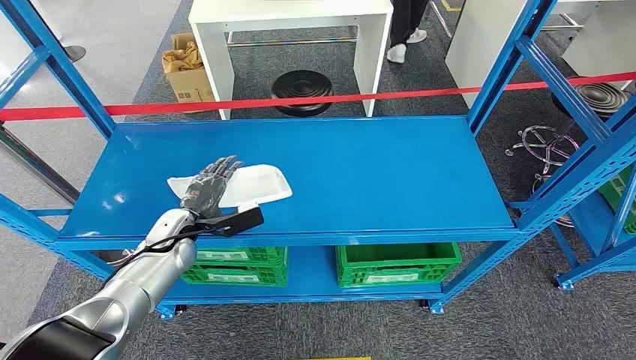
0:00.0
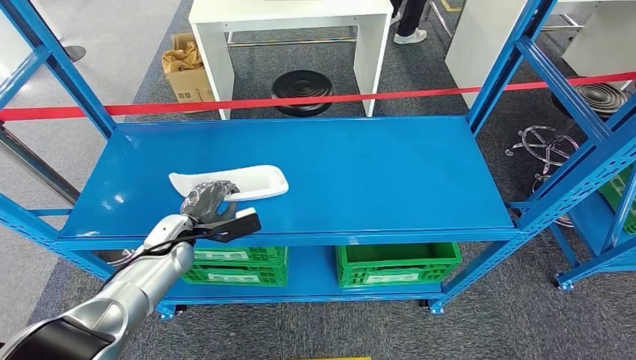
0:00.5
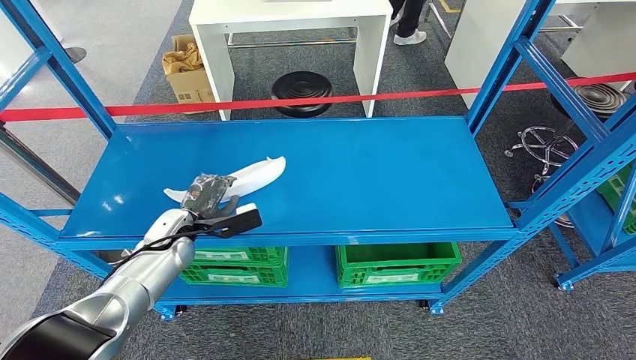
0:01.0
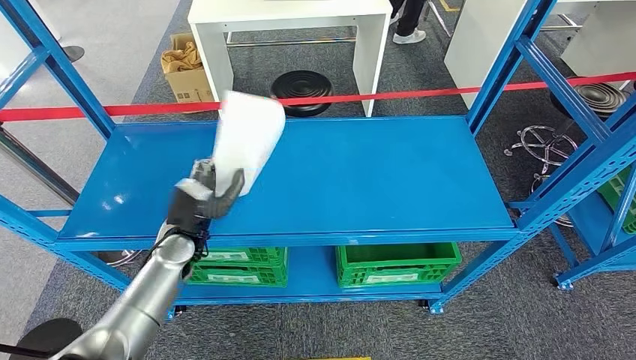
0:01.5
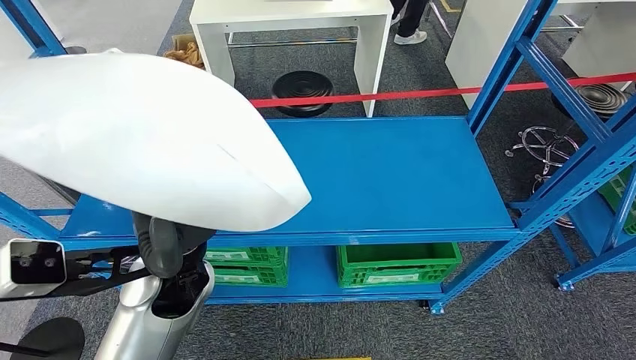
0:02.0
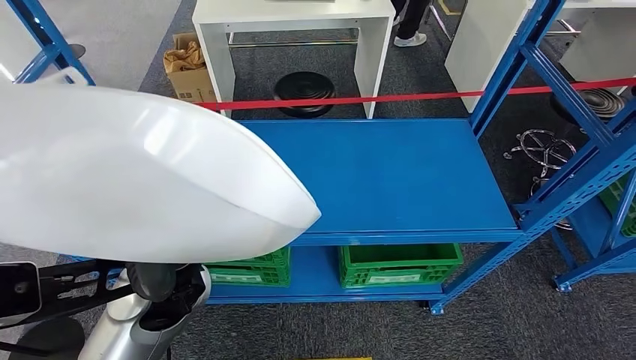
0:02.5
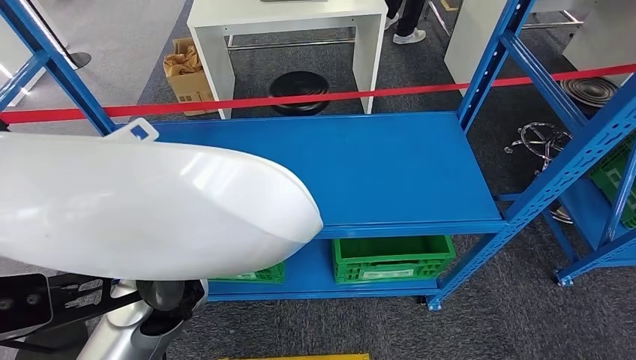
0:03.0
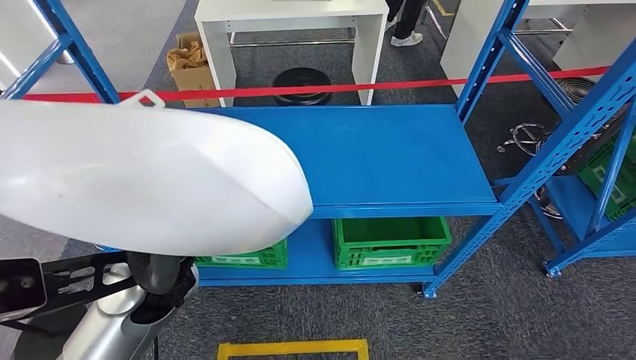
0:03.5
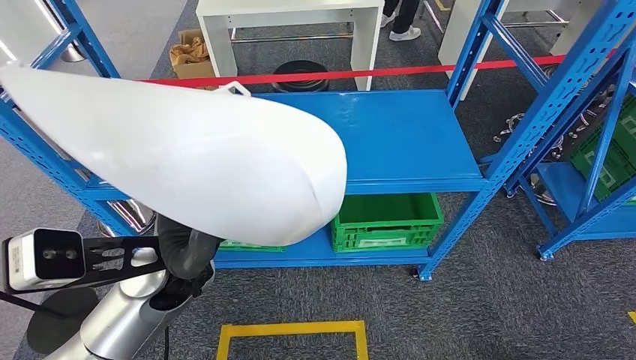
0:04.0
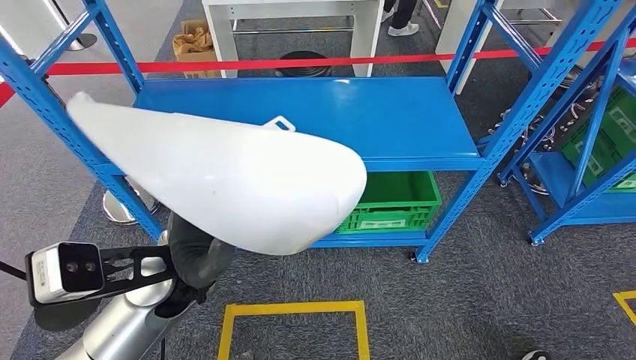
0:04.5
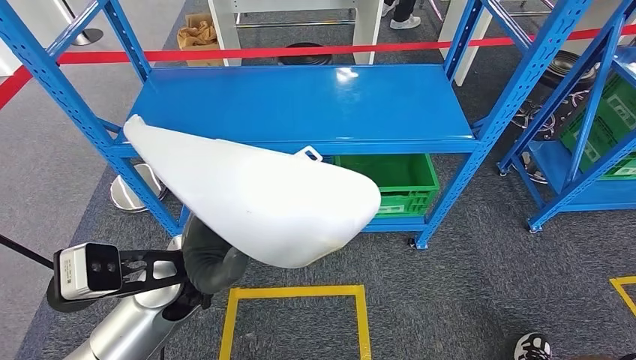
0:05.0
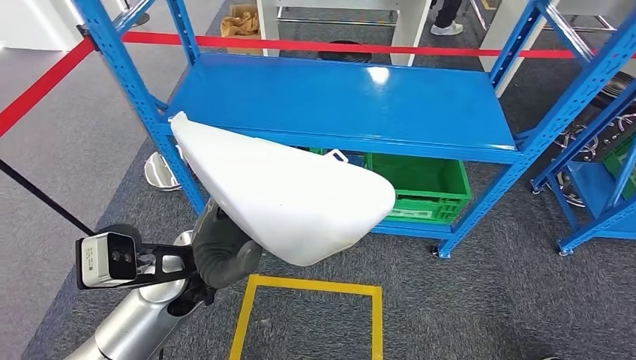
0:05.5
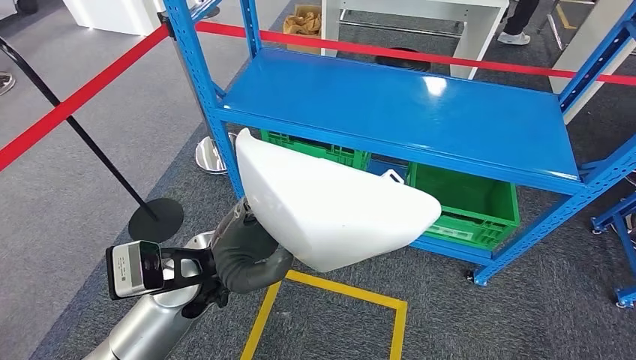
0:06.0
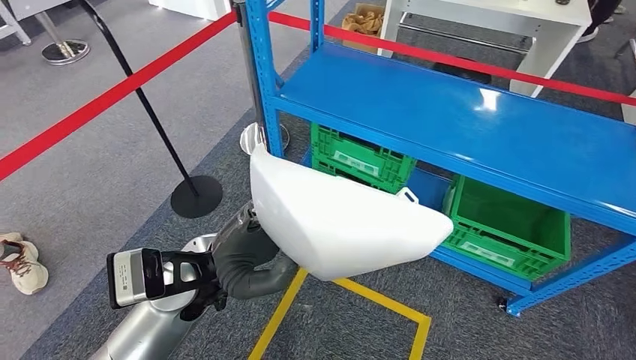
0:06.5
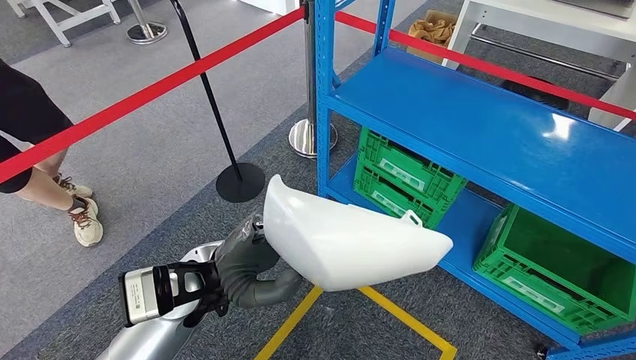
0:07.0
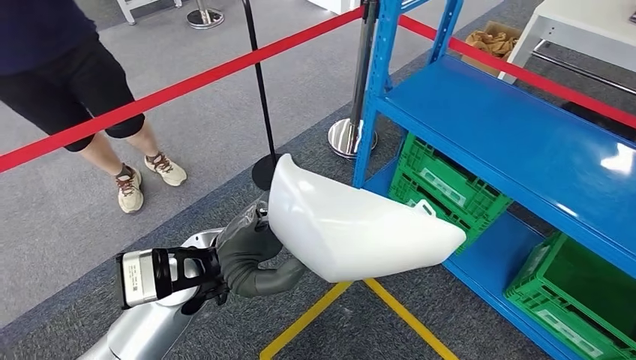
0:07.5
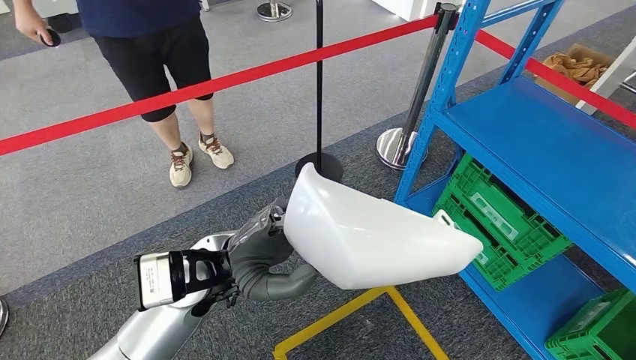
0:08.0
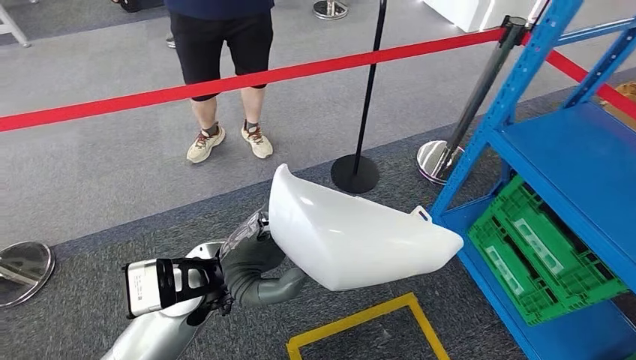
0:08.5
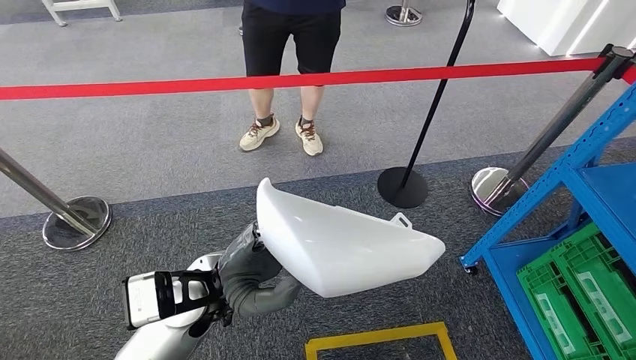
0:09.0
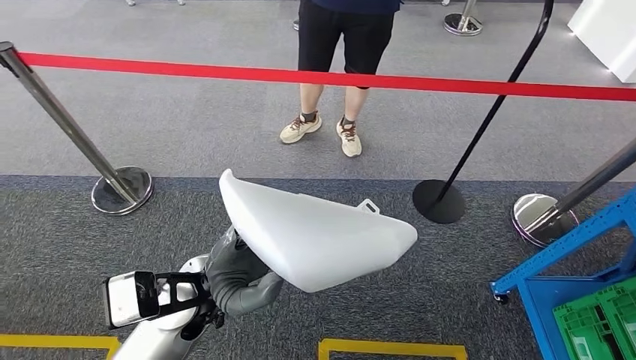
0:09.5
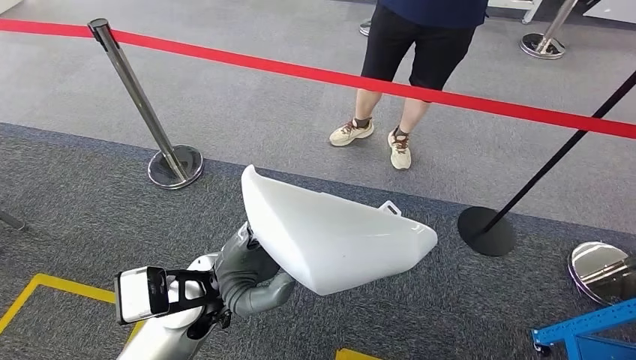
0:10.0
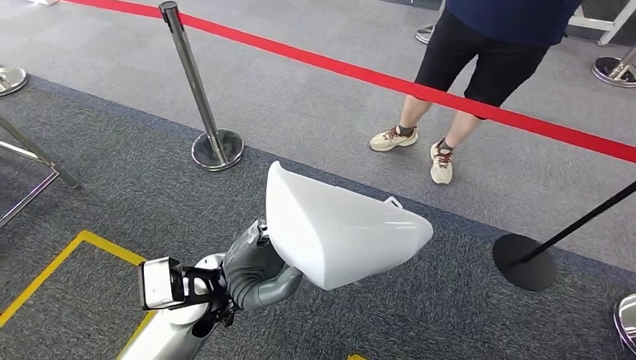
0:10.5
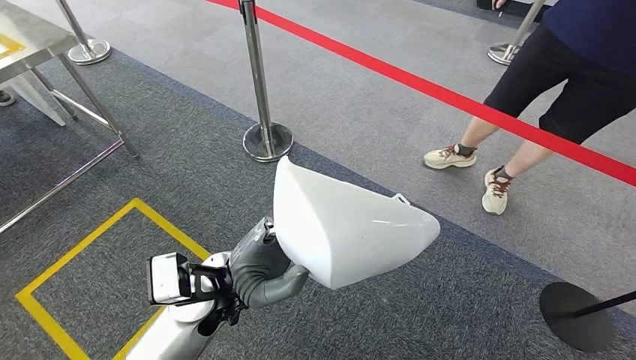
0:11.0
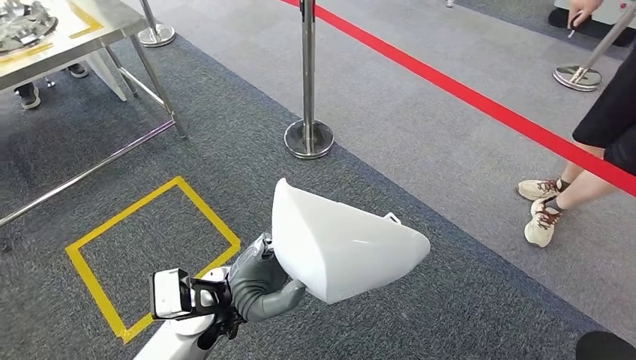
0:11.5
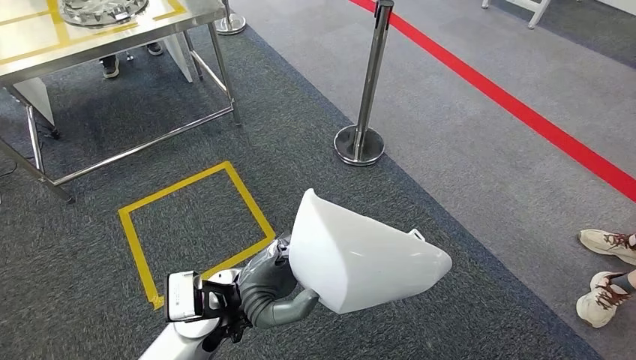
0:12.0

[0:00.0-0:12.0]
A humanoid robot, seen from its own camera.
Step, 0:00.0 to 0:02.0: Pick up the small component from the shelf.

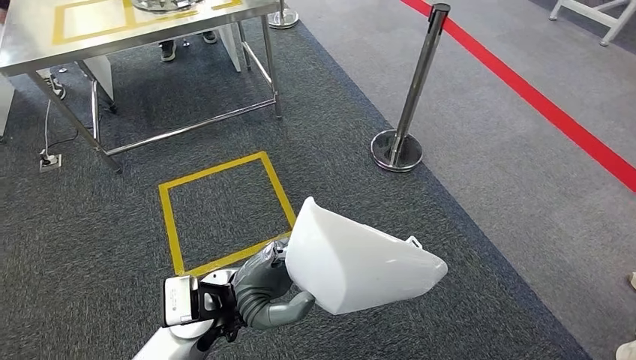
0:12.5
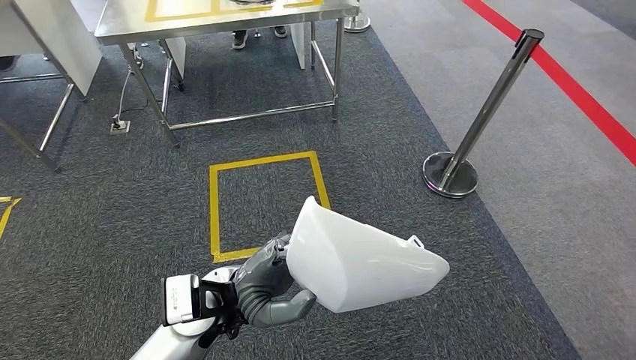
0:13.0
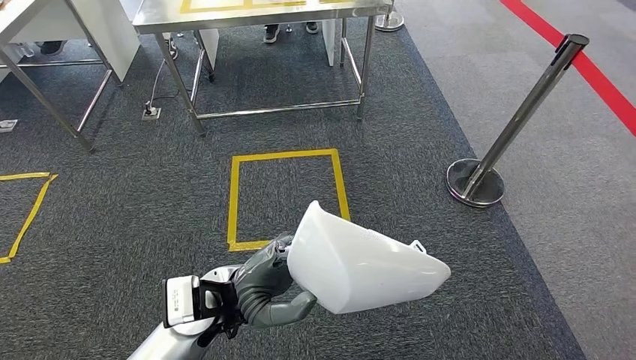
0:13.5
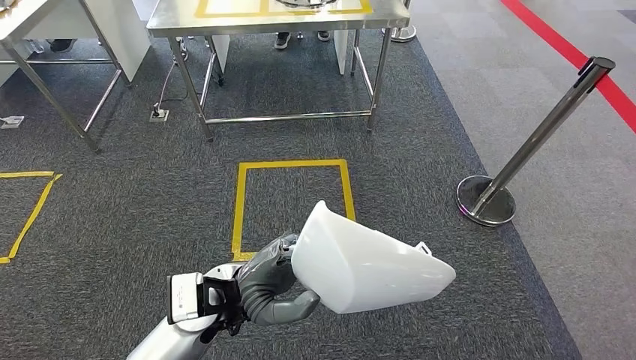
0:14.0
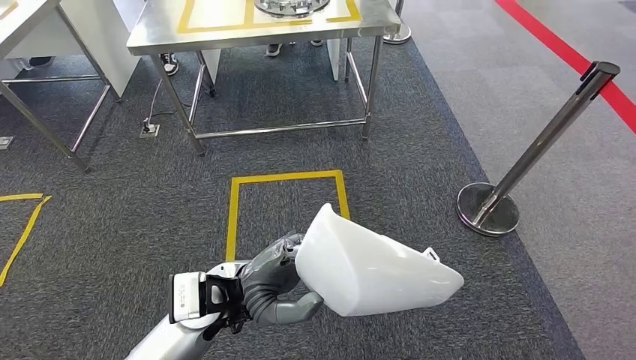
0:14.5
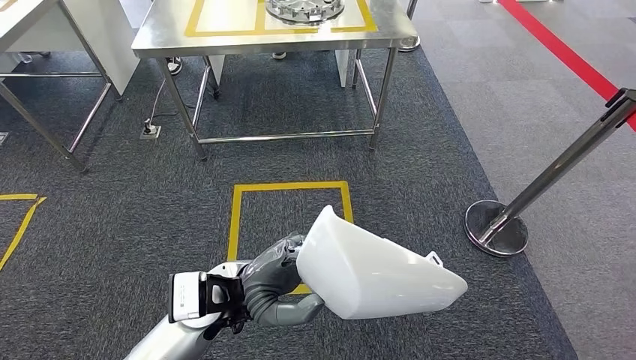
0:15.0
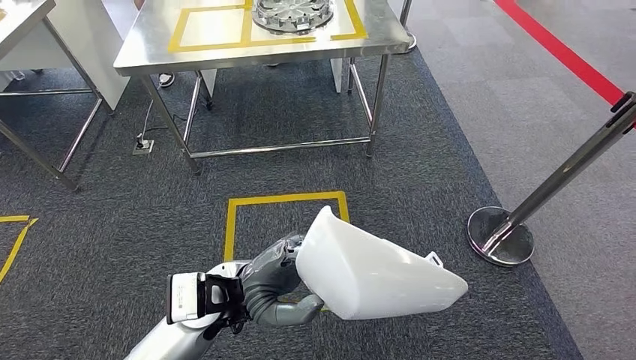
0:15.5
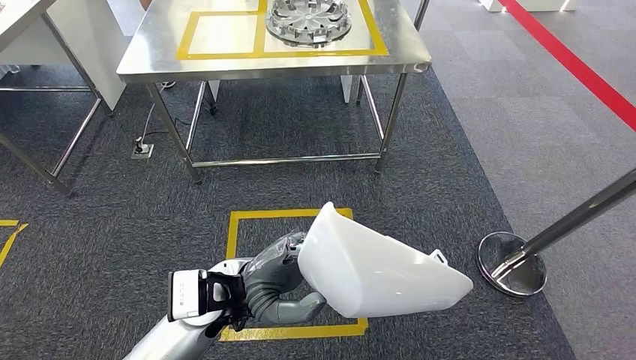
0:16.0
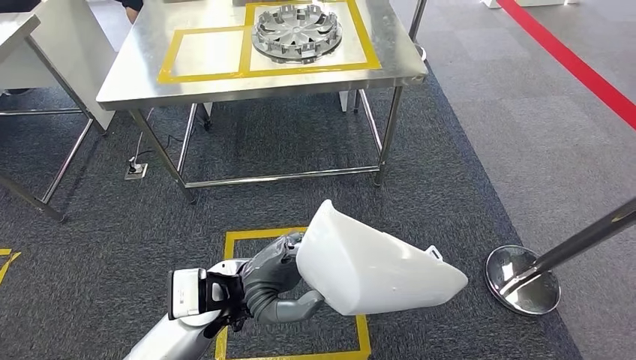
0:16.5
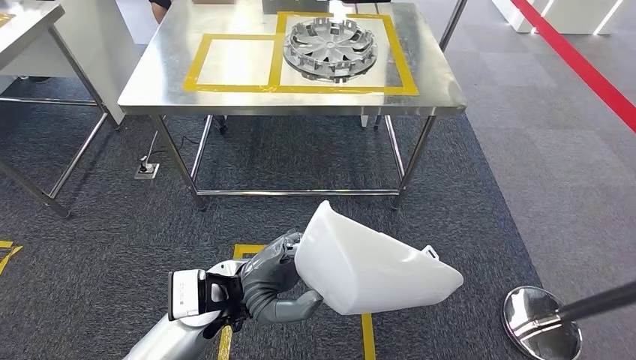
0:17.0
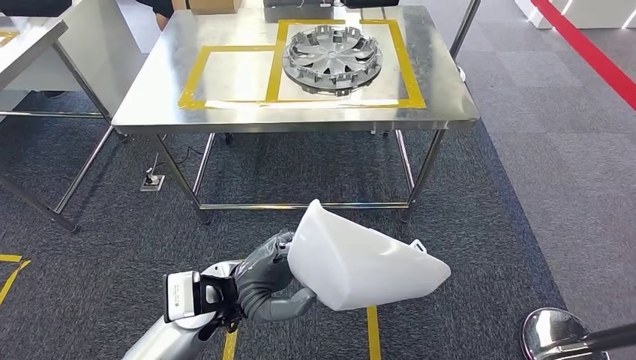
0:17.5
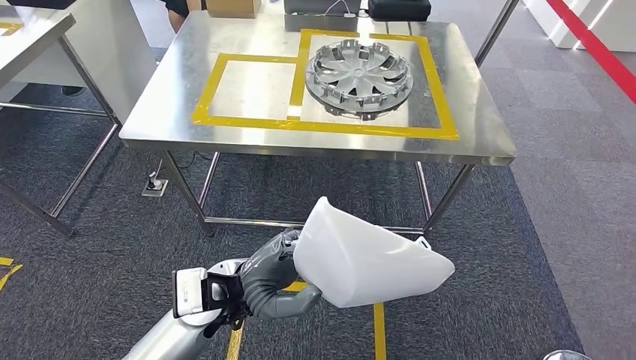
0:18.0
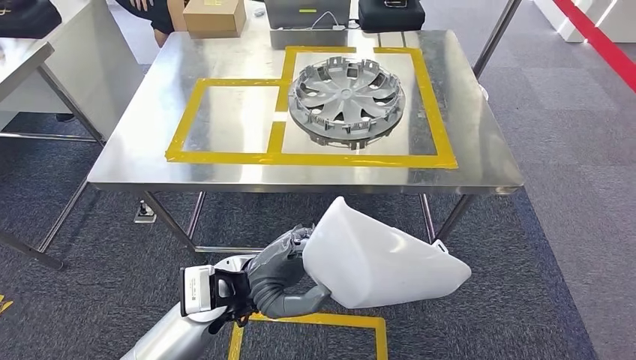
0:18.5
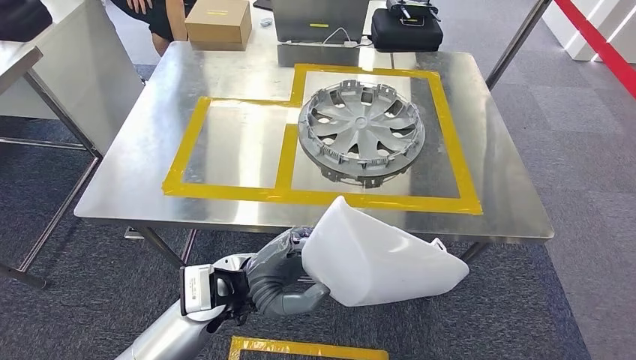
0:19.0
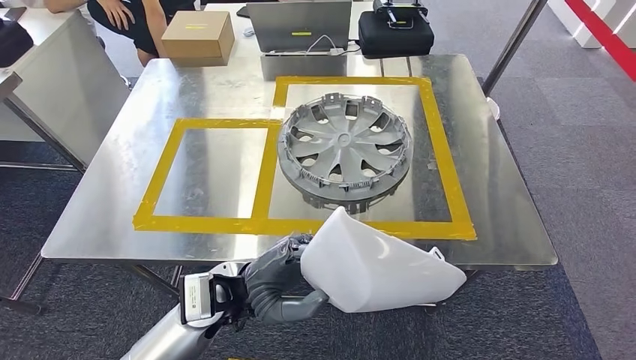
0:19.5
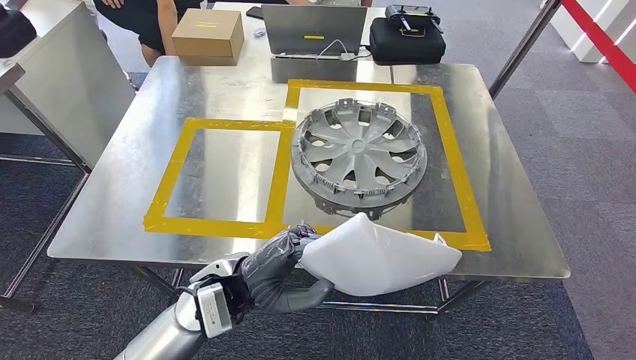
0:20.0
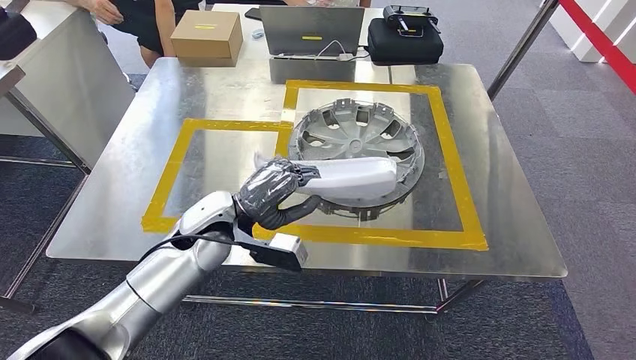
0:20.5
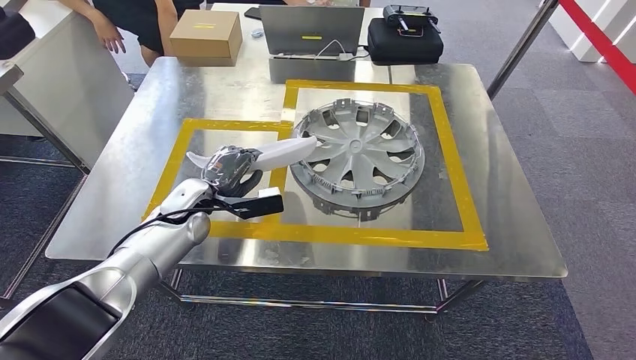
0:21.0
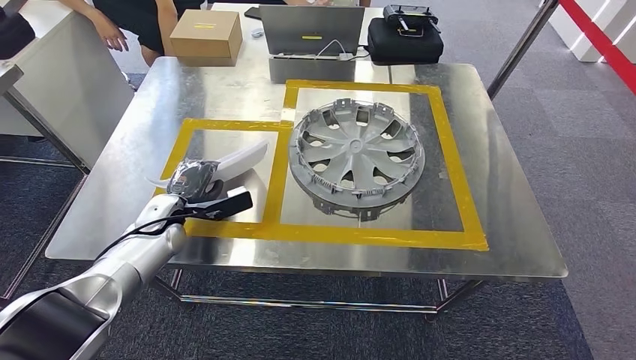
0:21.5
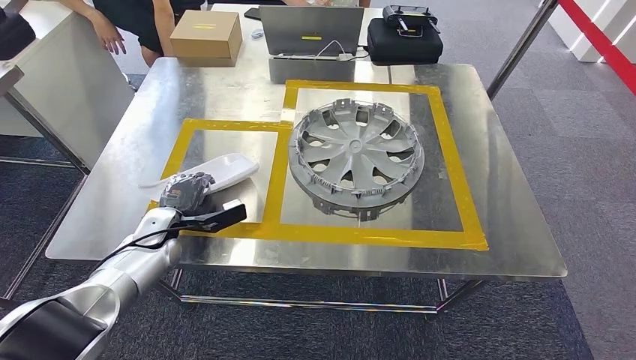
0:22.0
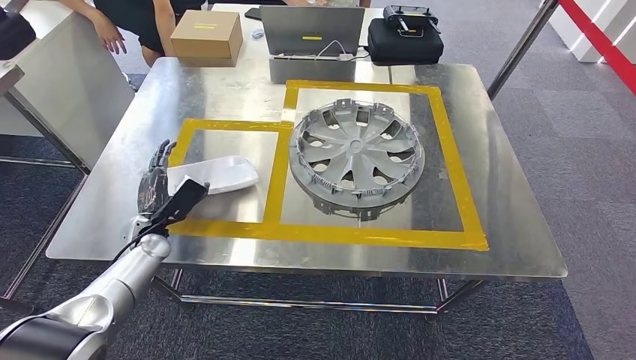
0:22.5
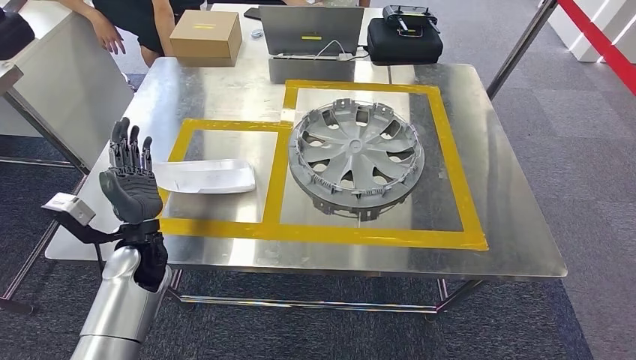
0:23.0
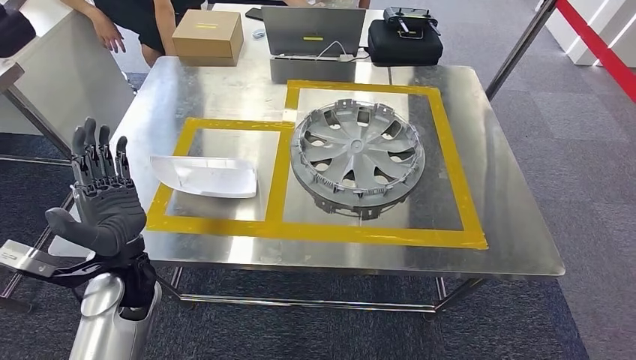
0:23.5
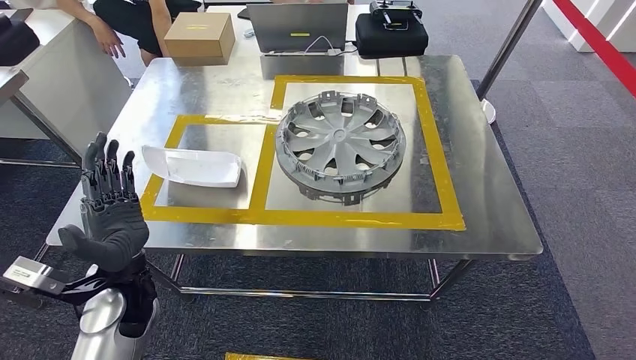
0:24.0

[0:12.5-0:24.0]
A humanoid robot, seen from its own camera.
Step, 0:12.5 to 0:19.0: Move the small component to the workbench.
